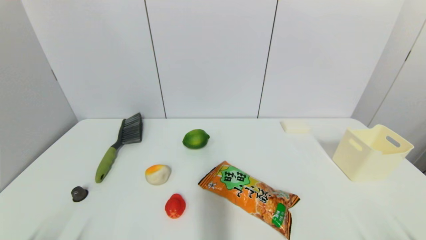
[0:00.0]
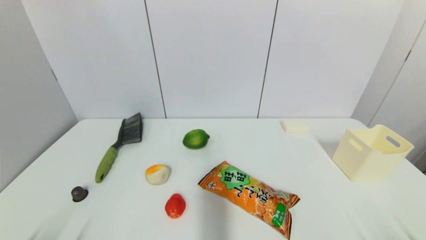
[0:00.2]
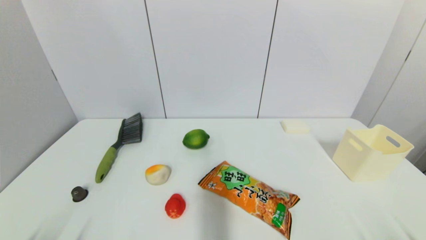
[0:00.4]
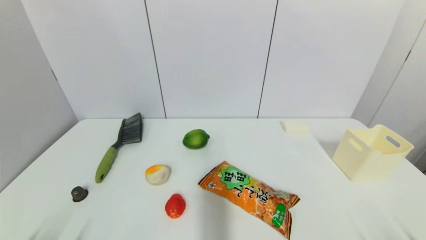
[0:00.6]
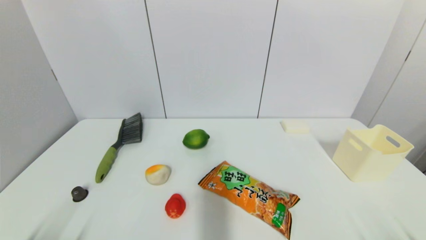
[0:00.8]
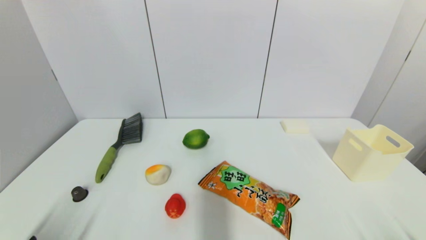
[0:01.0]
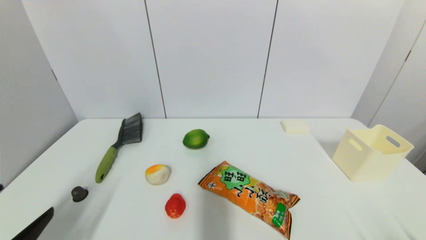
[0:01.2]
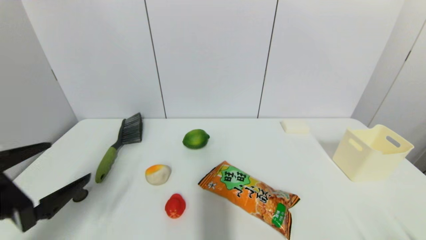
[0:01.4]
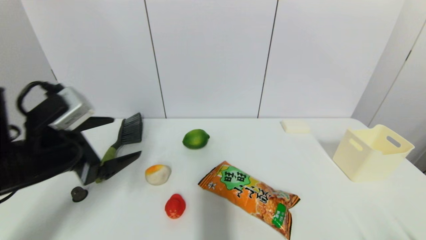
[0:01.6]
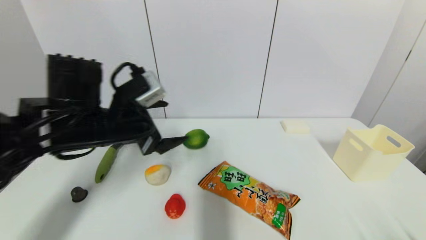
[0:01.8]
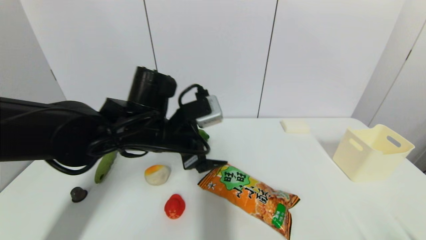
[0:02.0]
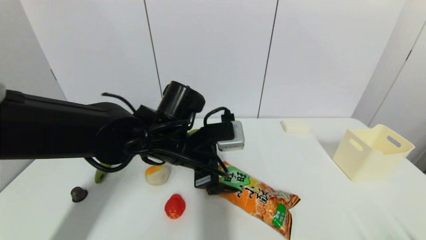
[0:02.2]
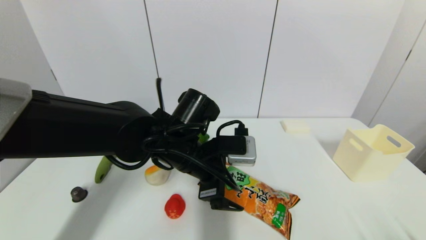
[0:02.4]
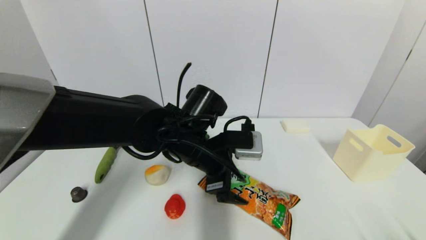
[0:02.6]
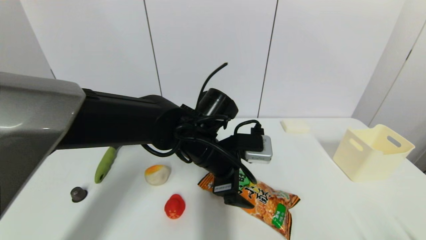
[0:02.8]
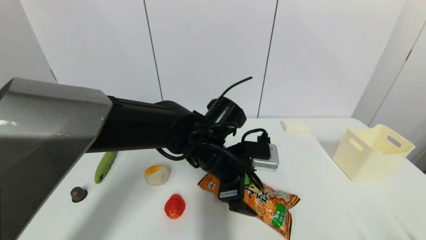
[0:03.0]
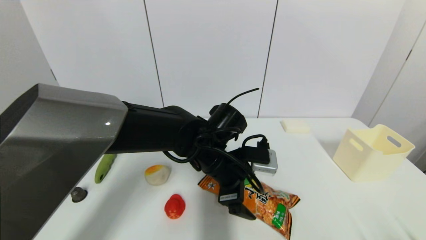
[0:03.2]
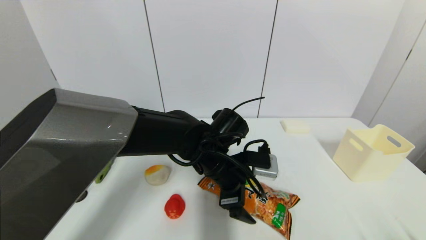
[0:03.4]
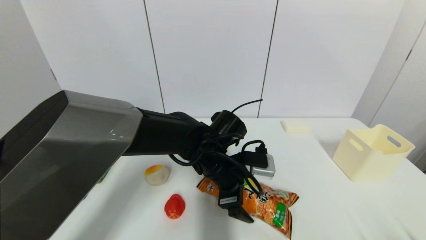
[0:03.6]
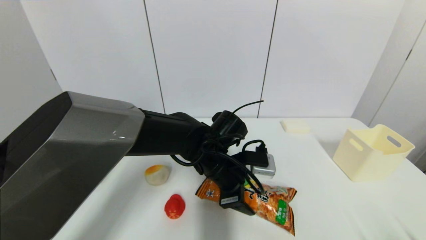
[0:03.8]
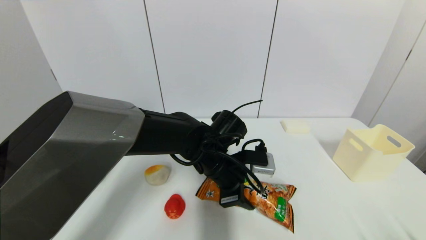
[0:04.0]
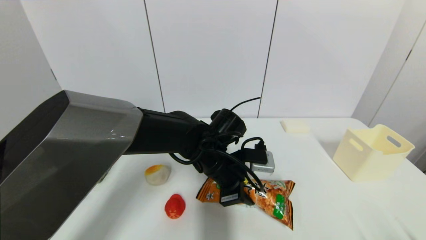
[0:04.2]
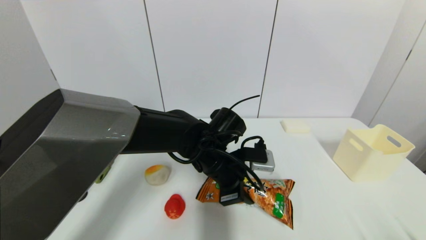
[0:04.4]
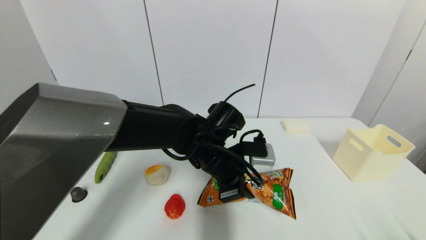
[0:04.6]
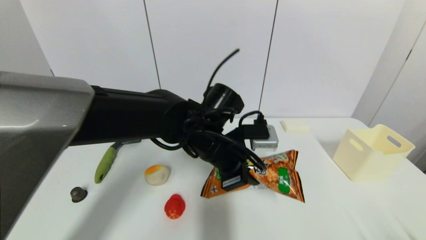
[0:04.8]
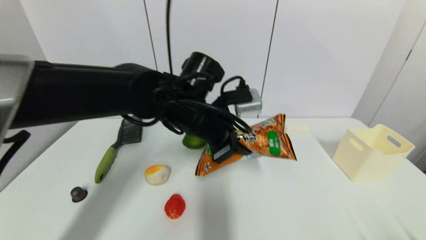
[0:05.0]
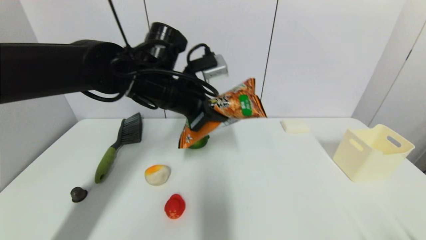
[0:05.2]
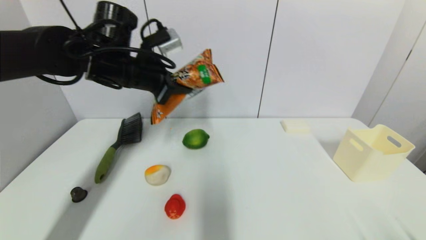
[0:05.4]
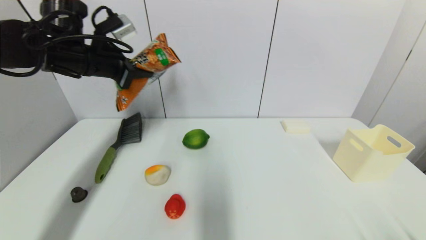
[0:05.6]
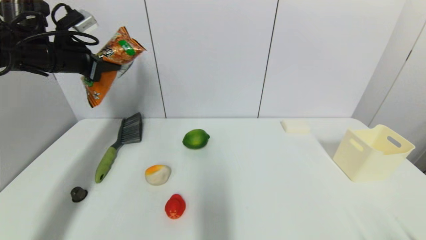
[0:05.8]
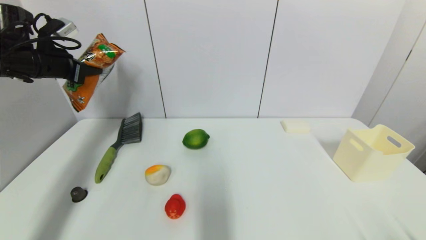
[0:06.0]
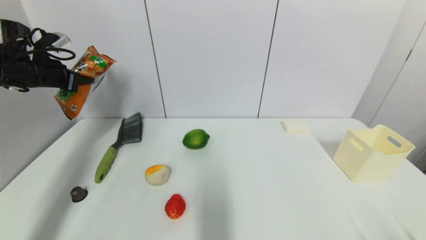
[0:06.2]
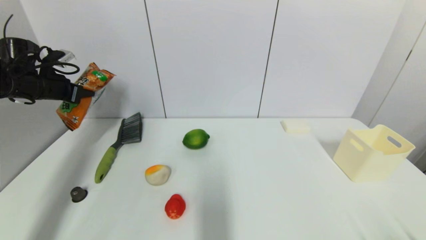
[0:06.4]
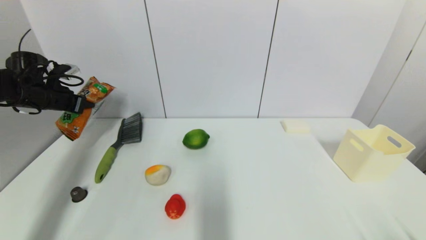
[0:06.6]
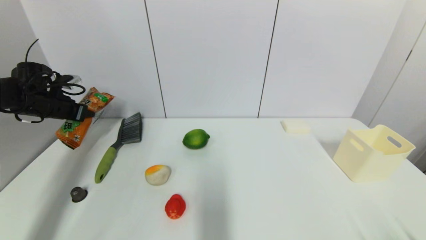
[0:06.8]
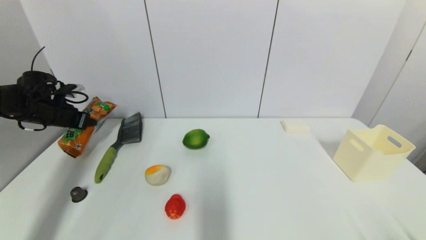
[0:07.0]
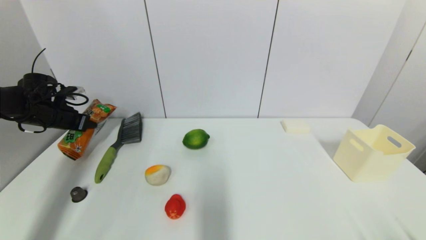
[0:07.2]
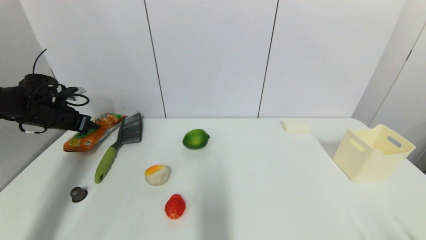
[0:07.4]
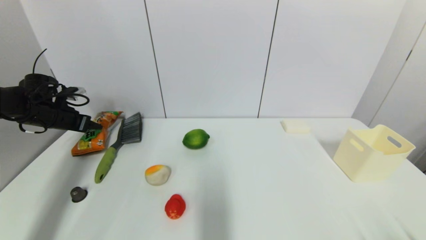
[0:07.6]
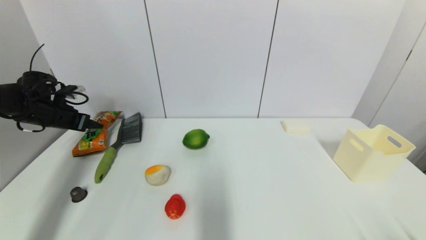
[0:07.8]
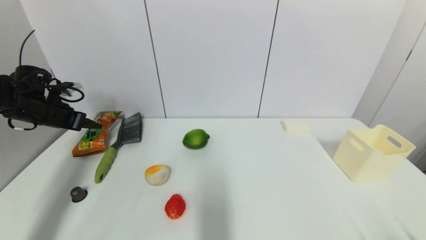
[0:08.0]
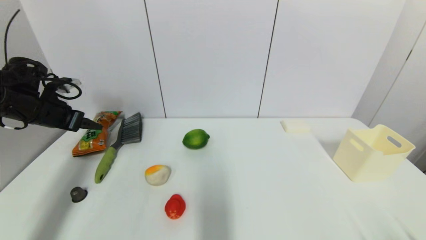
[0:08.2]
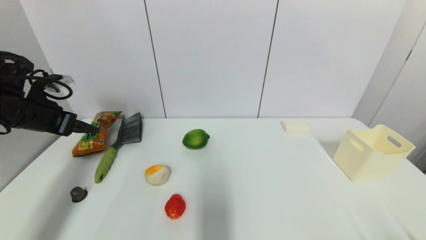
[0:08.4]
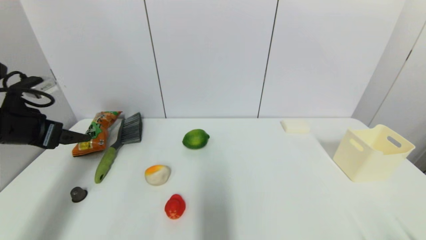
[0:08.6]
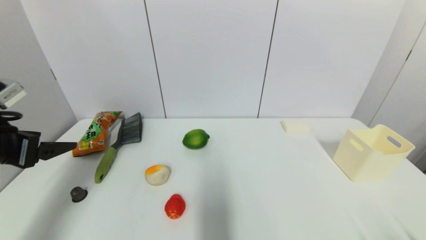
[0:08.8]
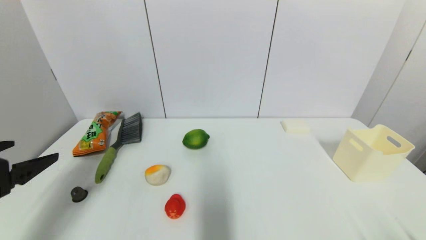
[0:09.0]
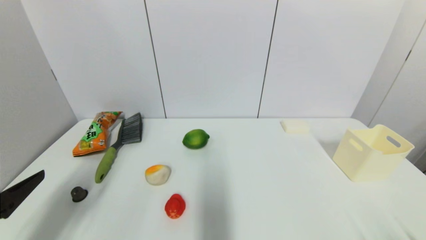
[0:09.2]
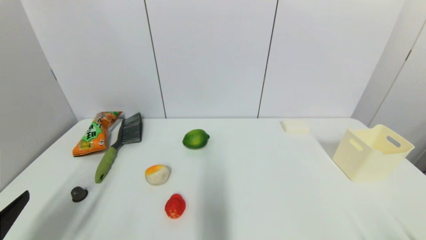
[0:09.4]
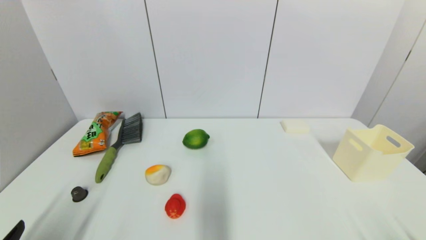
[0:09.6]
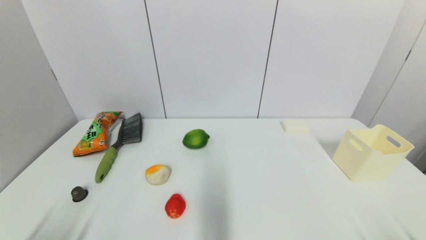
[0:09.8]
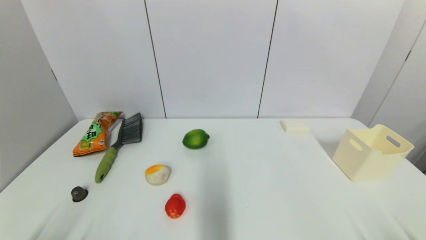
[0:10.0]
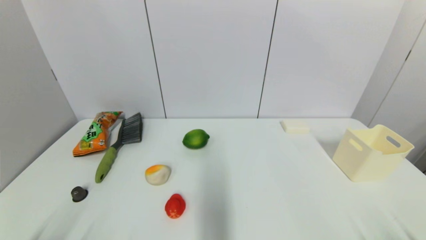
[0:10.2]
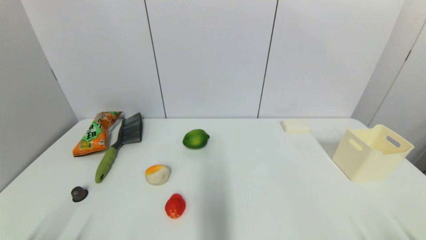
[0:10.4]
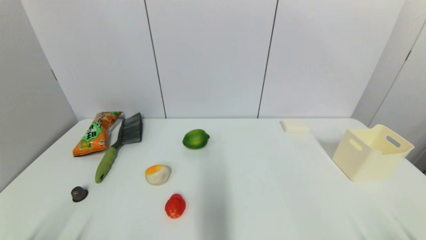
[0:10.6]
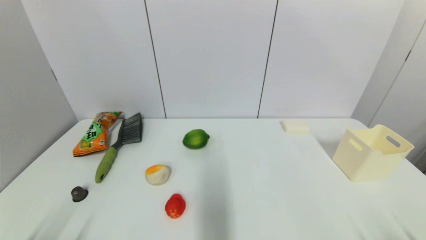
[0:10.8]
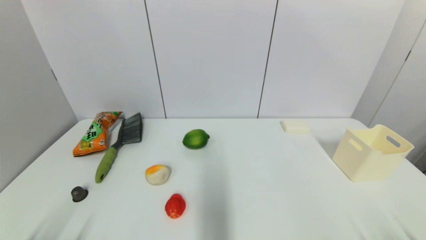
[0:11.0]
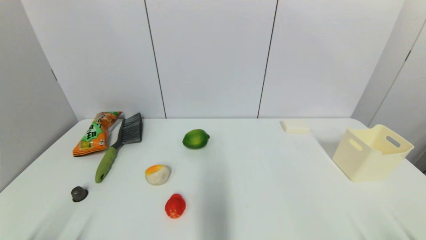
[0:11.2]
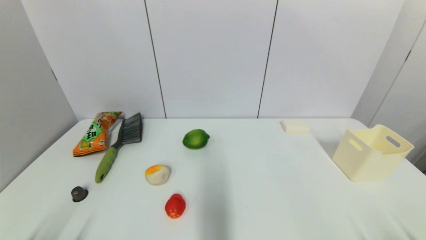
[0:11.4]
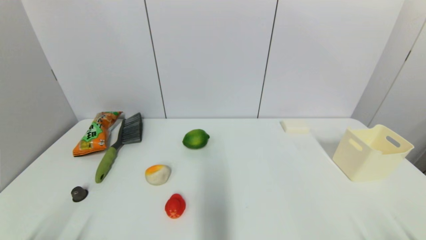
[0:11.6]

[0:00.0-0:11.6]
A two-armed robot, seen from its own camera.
Step, 0:01.0 to 0:04.4: Grasp the cookie with left gripper.
Step, 0:04.8 to 0:07.8: Place the cookie on the table with left gripper.
0:00.0 to 0:01.4: The left gripper heads forward and upward, covering approximately 20 cm.
0:01.4 to 0:02.8: The left gripper heads to the right and forward, covering approximately 30 cm.
0:02.8 to 0:04.4: The left gripper closes its fingers.
0:04.4 to 0:05.8: The left gripper heads to the left and upward, covering some 35 cm.
0:05.8 to 0:07.2: The left gripper is displaced downward and to the left by about 20 cm.
0:07.2 to 0:08.8: The left gripper shifts approximately 25 cm backward, and opens its fingers.
0:08.8 to 0:10.2: The left gripper goes about 25 cm backward and downward.
